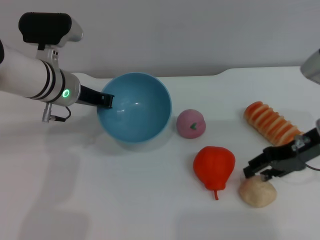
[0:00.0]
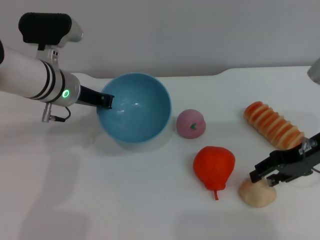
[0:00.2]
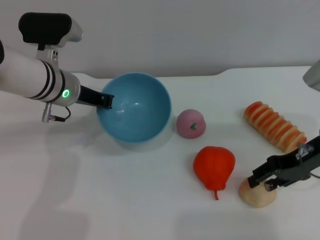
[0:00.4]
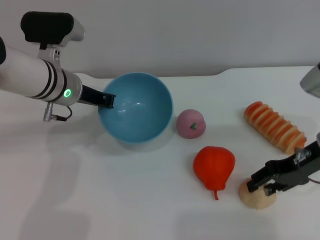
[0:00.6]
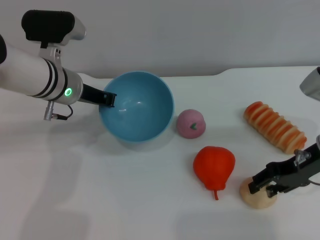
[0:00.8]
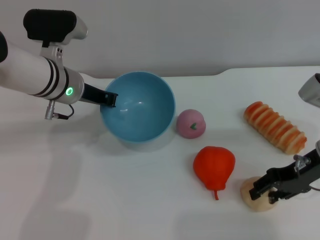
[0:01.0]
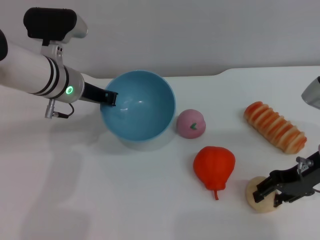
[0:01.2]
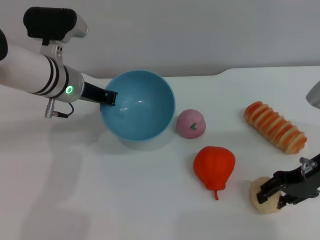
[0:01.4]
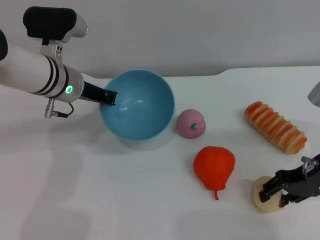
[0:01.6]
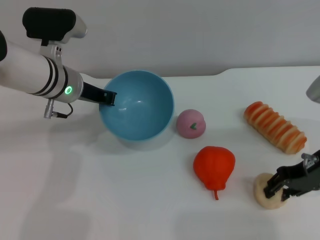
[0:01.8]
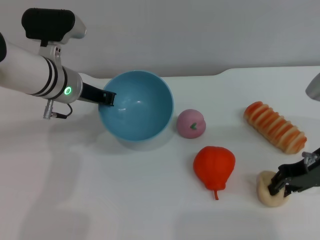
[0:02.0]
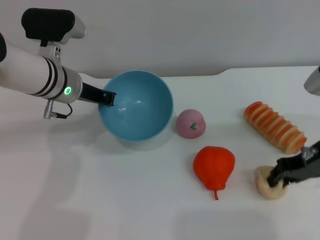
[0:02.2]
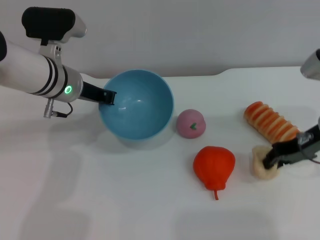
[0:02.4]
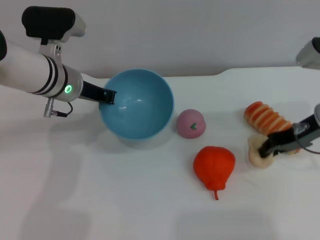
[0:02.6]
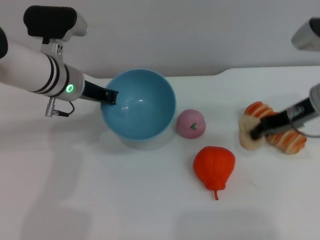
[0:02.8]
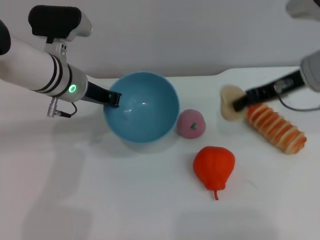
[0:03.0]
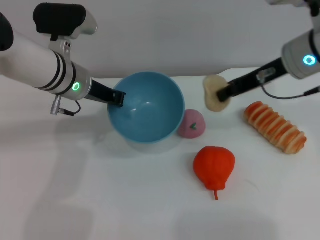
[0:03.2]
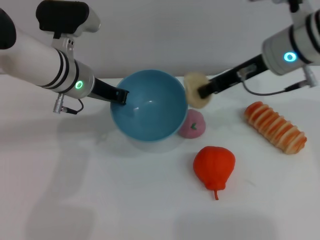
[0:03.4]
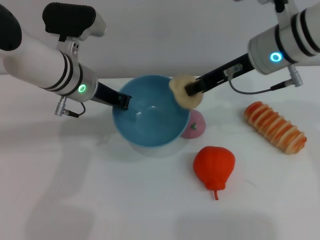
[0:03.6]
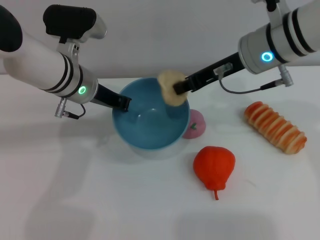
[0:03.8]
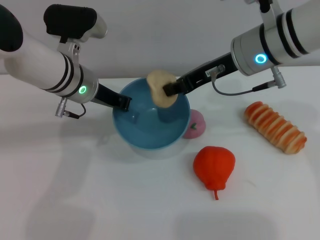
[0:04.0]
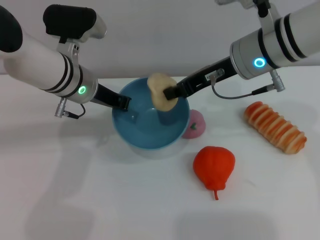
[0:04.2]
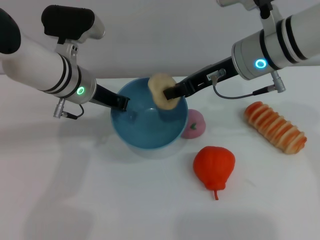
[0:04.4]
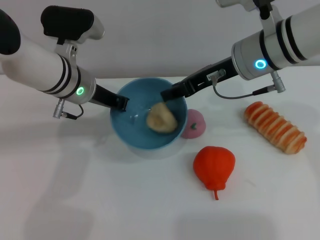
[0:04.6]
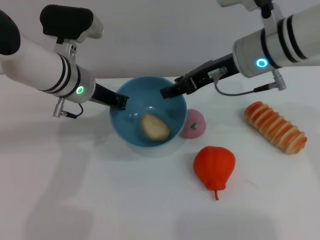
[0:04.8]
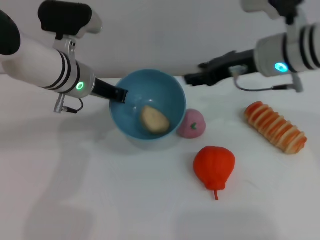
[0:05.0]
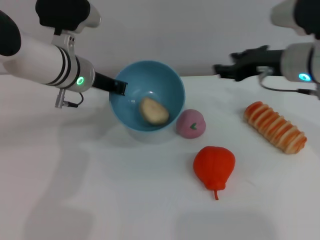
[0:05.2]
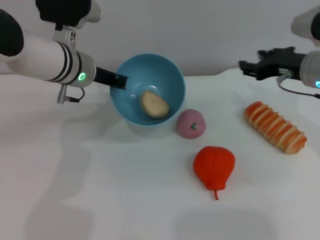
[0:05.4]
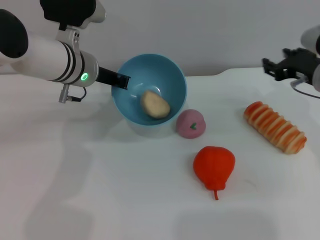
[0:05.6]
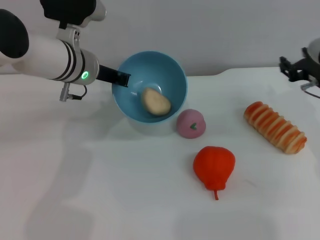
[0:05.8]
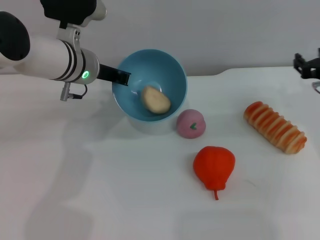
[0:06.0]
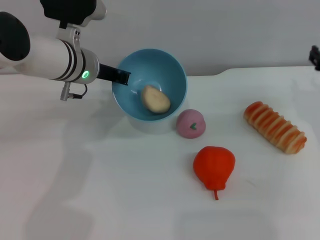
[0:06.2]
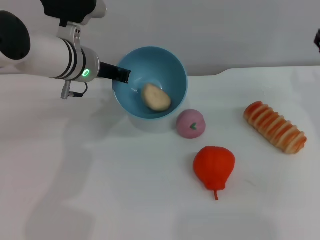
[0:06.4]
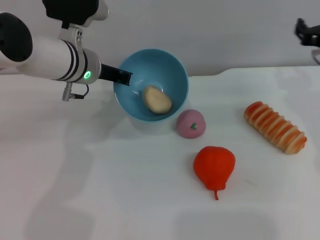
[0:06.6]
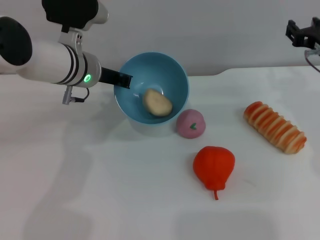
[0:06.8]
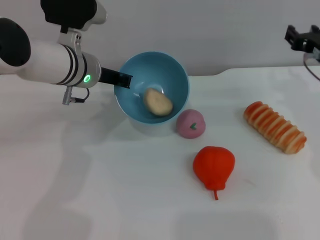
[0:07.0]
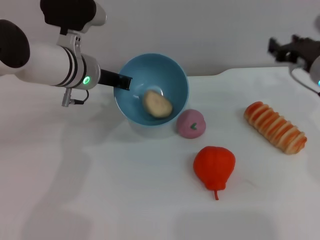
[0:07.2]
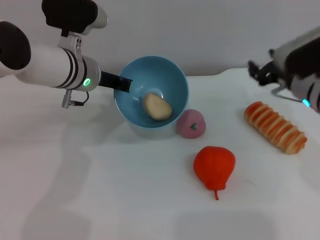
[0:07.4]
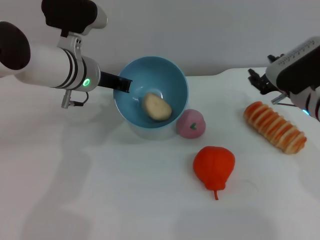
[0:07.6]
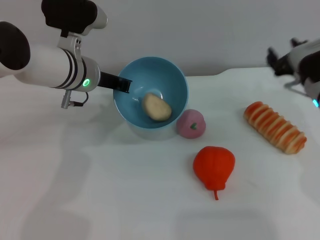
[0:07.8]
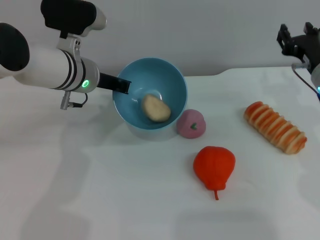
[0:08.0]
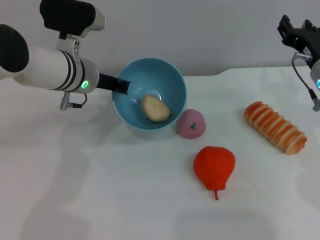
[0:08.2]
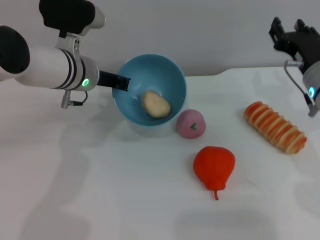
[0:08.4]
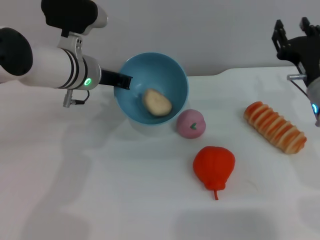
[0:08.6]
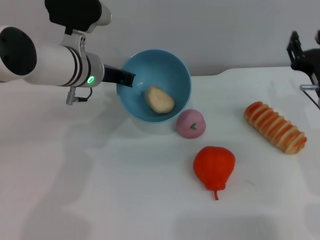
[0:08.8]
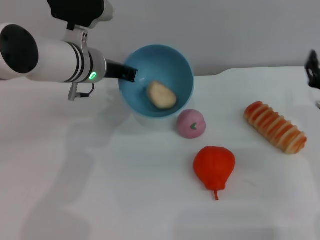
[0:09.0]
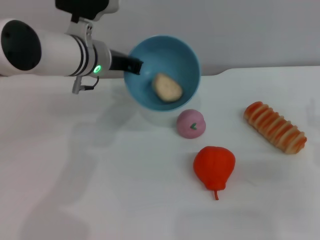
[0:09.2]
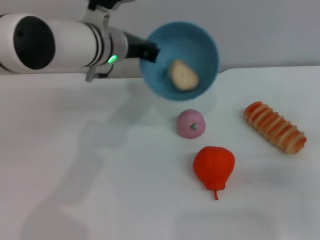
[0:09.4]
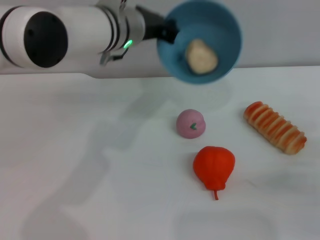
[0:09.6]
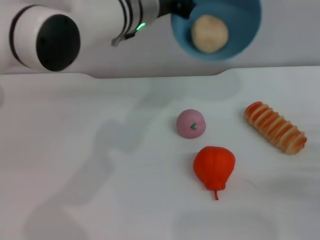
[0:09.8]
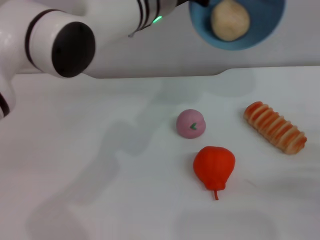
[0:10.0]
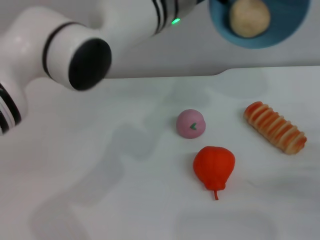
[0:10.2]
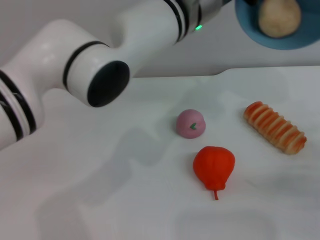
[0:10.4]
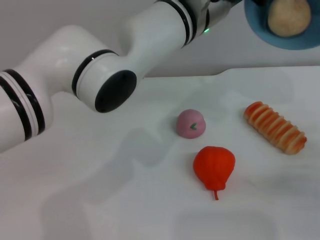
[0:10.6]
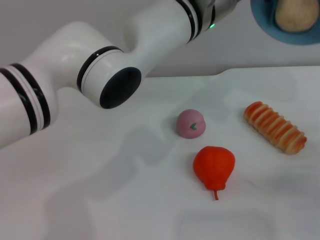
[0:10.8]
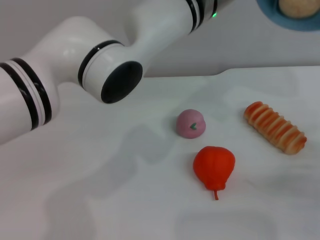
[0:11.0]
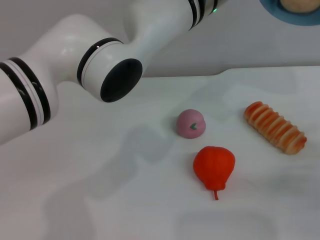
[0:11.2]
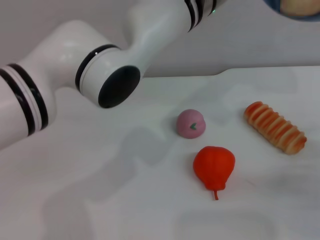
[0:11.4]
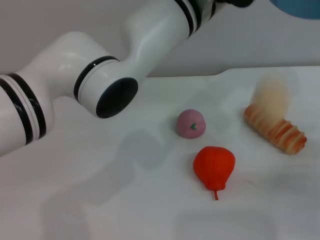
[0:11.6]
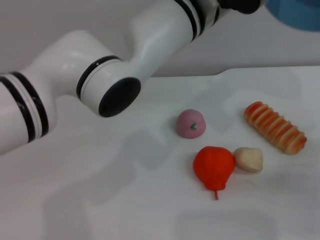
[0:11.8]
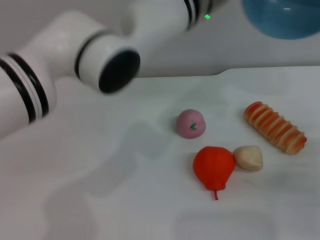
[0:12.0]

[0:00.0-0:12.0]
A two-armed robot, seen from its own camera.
Task of the whole recording: put the egg yolk pastry into the blue bowl and pour it out repeatedly.
Step, 0:00.0 to 0:03.0: Pick up the egg yolk pastry with the right gripper.
Step, 0:03.2 to 0:05.0: Place the egg yolk pastry into the bowl.
Step, 0:05.2 to 0:11.6: Pour the egg yolk pastry out of bowl.
0:00.0 to 0:01.6: The grippers make only small movements.
0:01.6 to 0:03.0: The right gripper travels upward, forward and to the left by roughly 15 cm, and closes up.
0:03.0 to 0:04.4: The right gripper goes roughly 10 cm to the left.
0:04.4 to 0:06.0: The right gripper travels to the right and downward by roughly 20 cm, and opens its fingers.
0:06.0 to 0:07.6: The right gripper shifts approximately 5 cm to the left.
0:07.6 to 0:09.0: The right gripper heads backward, covering roughly 5 cm.
0:09.0 to 0:10.4: The left gripper travels to the right and upward by some 15 cm, while the right gripper moves to the right and backward, roughly 10 cm.
0:10.4 to 0:12.0: There are only small adjustments of the grippers.

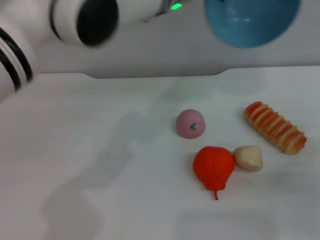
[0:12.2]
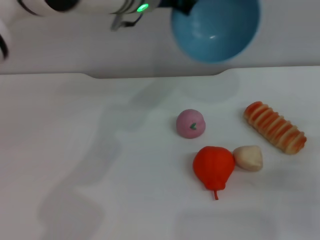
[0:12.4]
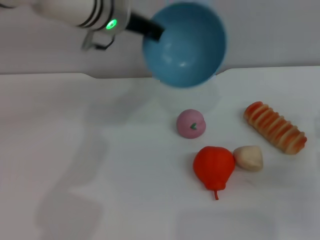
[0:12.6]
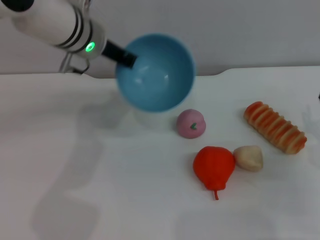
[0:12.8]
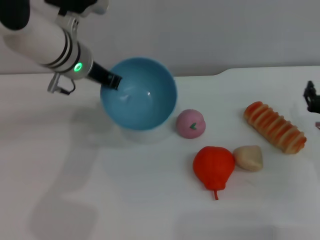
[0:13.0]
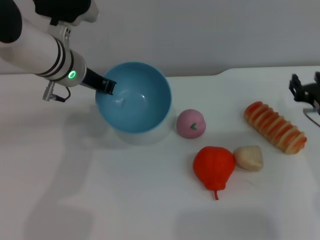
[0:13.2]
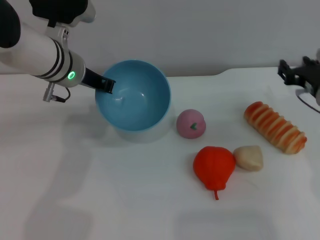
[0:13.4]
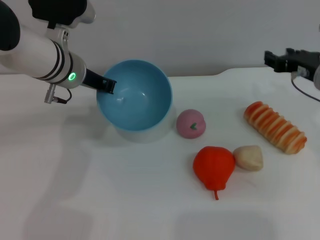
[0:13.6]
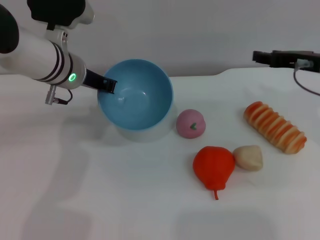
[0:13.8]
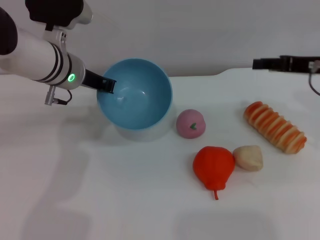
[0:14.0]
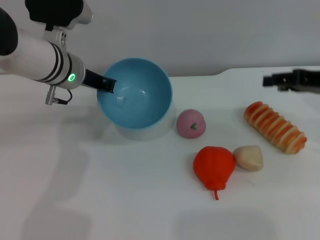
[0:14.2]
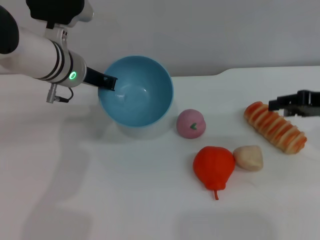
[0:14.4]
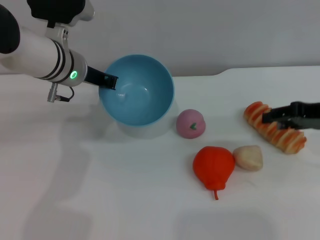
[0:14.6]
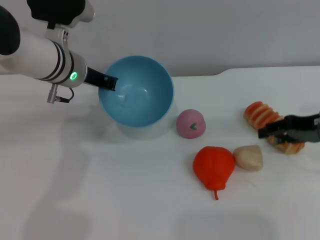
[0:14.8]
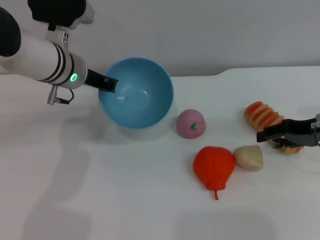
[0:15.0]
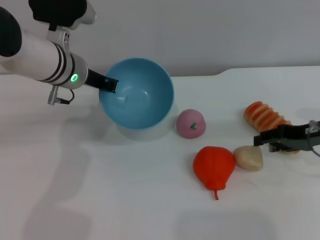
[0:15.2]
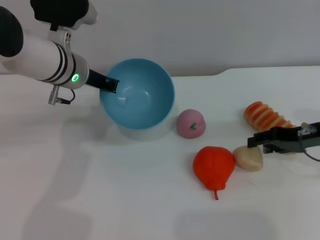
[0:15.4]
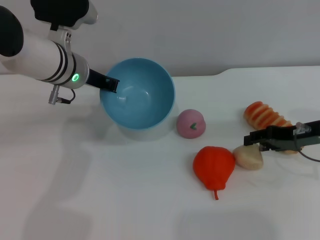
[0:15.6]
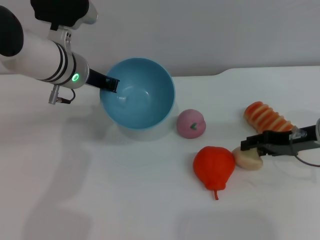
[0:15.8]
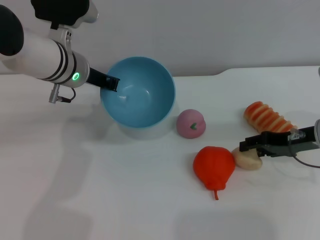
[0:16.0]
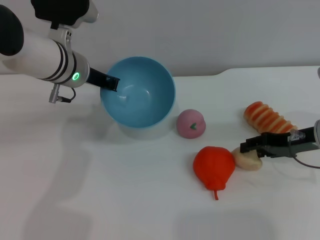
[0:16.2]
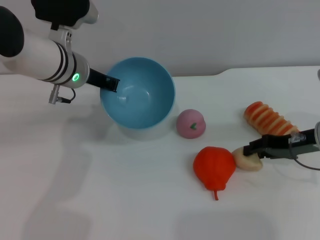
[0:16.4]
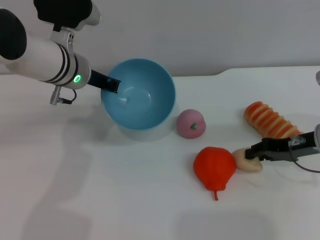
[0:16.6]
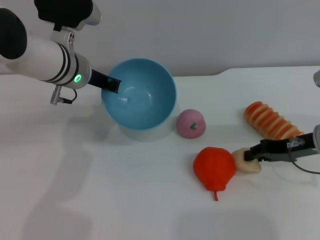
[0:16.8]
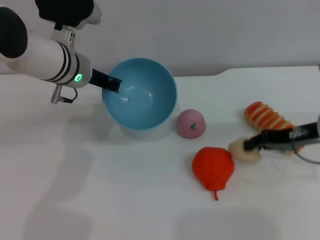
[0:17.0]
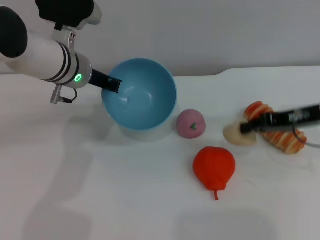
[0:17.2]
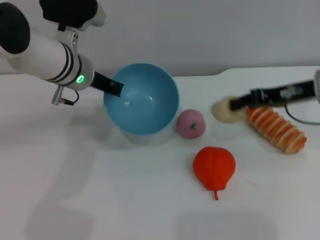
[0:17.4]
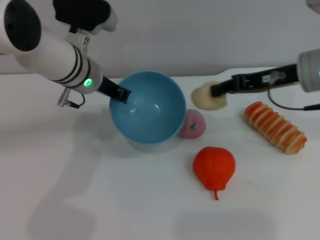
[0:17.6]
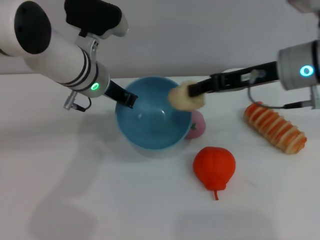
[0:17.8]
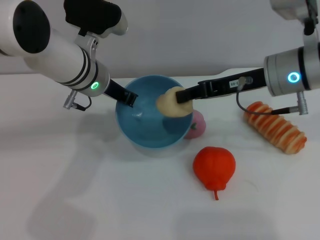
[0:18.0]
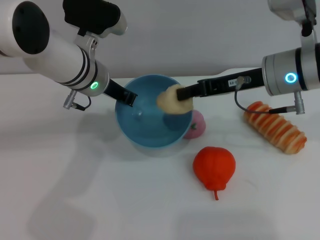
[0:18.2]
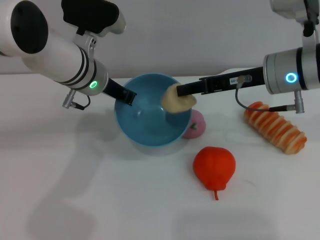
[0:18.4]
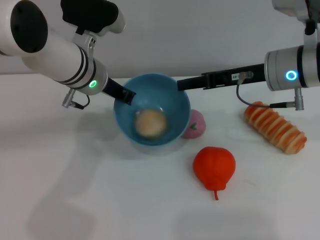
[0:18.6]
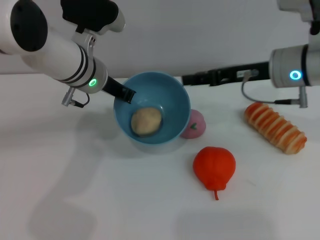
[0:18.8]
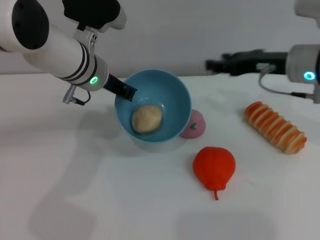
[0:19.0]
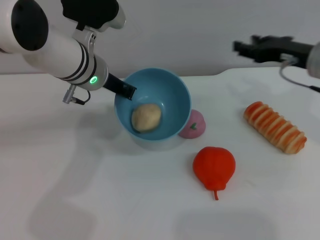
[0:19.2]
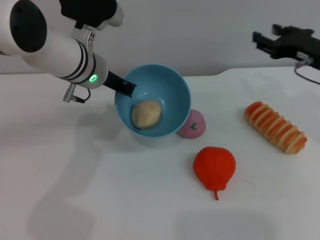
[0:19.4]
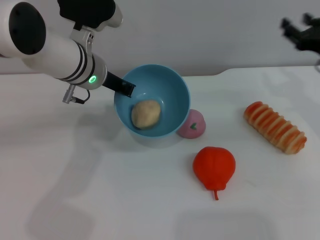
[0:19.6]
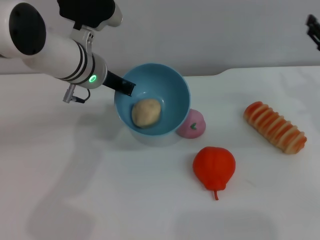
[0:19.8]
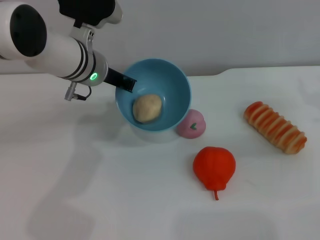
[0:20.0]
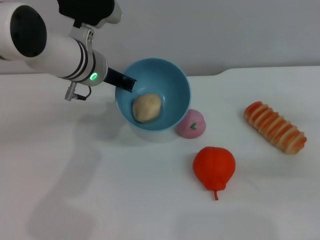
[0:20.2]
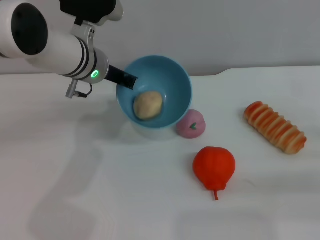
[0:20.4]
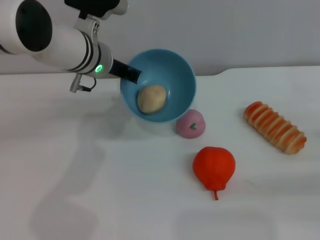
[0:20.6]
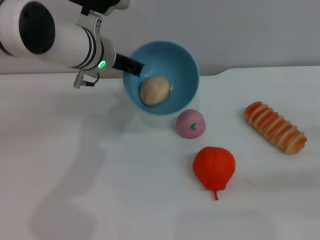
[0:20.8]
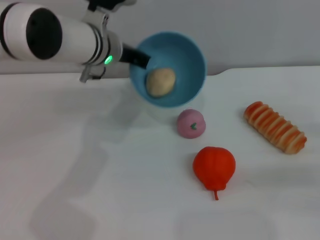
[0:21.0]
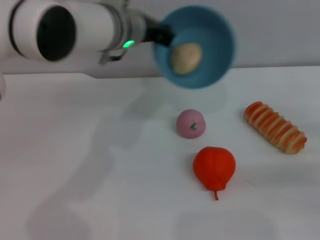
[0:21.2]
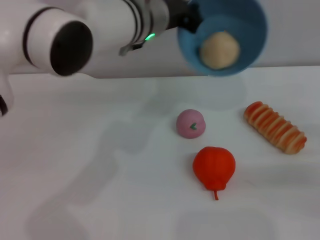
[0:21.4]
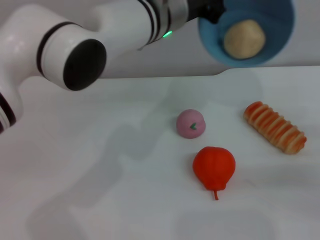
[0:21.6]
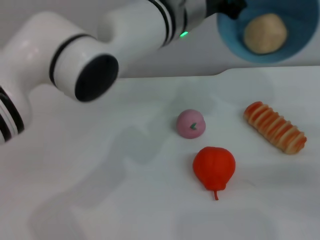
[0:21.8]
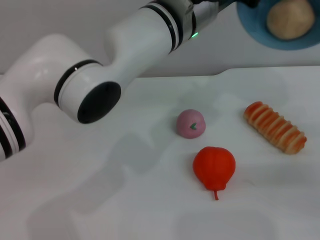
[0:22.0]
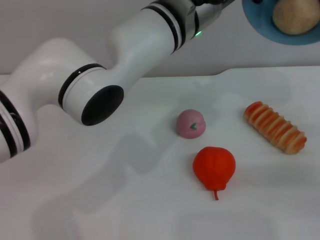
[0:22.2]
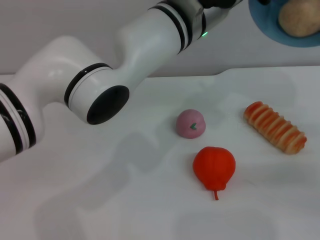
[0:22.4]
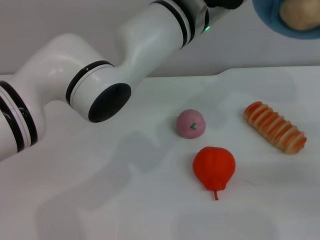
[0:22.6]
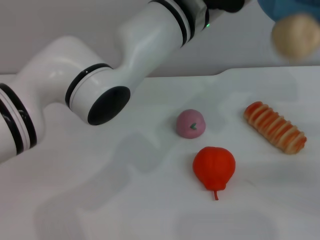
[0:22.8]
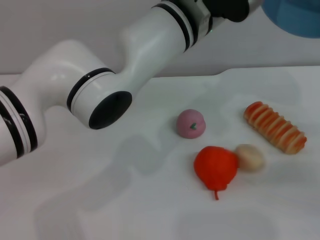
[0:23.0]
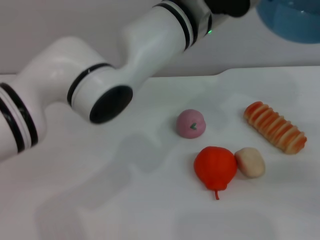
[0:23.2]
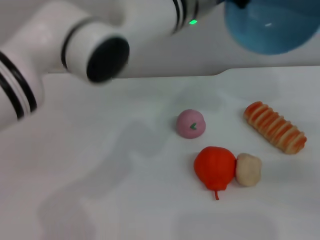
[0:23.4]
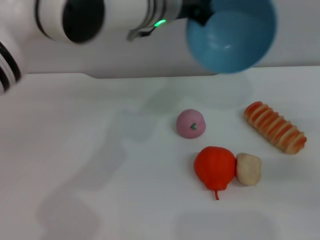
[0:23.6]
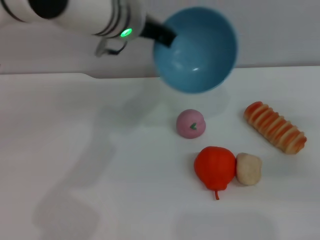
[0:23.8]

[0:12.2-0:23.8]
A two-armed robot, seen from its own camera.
Task of the whole recording: put the egg yolk pastry into the blue bowl and pour it out repeatedly.
Step, 0:12.2 to 0:17.6: Pick up the egg yolk pastry with the right gripper.
Step, 0:17.8 to 0:18.6: Place the egg yolk pastry into the bowl.
Step, 0:19.0 to 0:23.0: Pour the egg yolk pastry out of bowl.
0:12.2 to 0:13.6: The left gripper is displaced to the left and downward by some 15 cm. Meanwhile the right gripper travels forward, upward and to the left by about 15 cm.
0:13.6 to 0:15.0: The right gripper changes place by roughly 5 cm.
0:15.0 to 0:16.6: The right gripper changes place by roughly 5 cm.
0:16.6 to 0:18.0: The right gripper shifts about 15 cm upward and to the left, and closes its fingers.
0:18.0 to 0:19.4: The right gripper travels to the right by approximately 10 cm, and opens.
0:19.4 to 0:21.0: The right gripper heads backward, to the right and downward, covering about 15 cm.
0:21.0 to 0:22.4: The left gripper moves to the right, upward and backward, about 15 cm.
0:22.4 to 0:23.8: The left gripper is displaced to the left and forward by roughly 10 cm.
